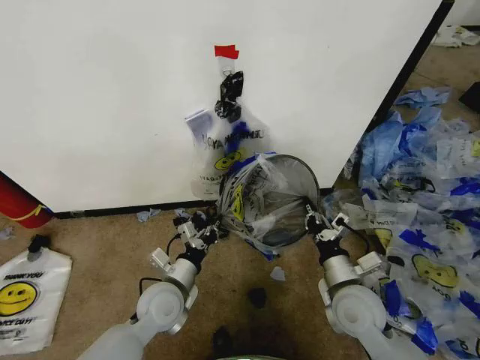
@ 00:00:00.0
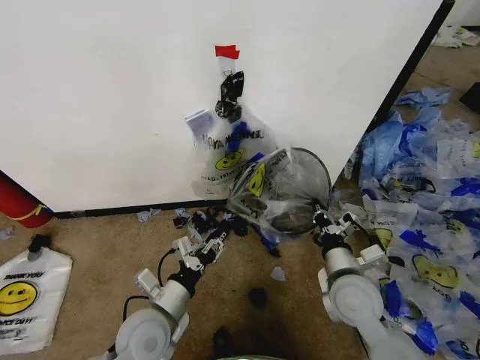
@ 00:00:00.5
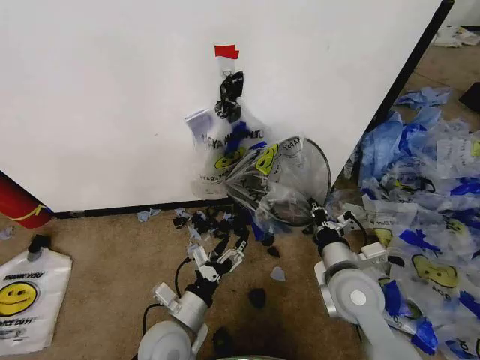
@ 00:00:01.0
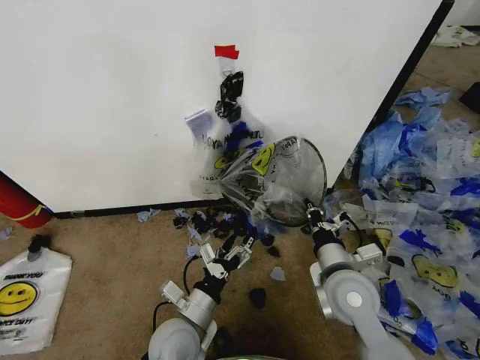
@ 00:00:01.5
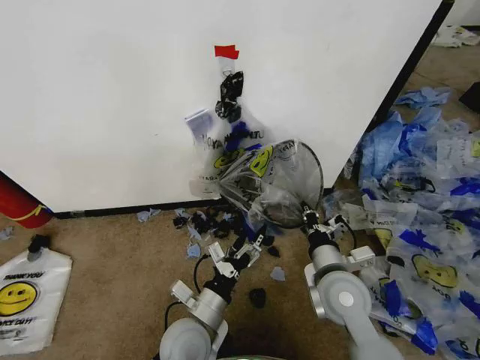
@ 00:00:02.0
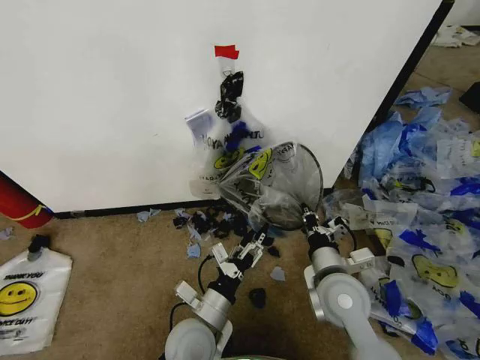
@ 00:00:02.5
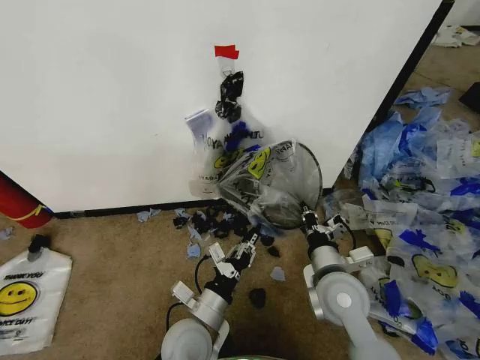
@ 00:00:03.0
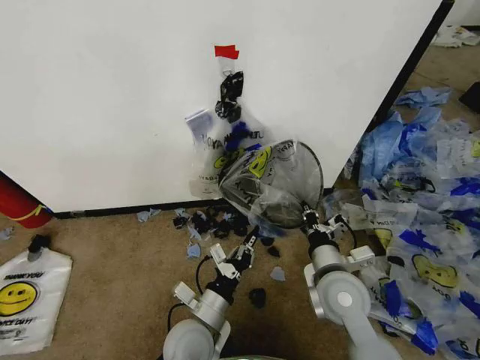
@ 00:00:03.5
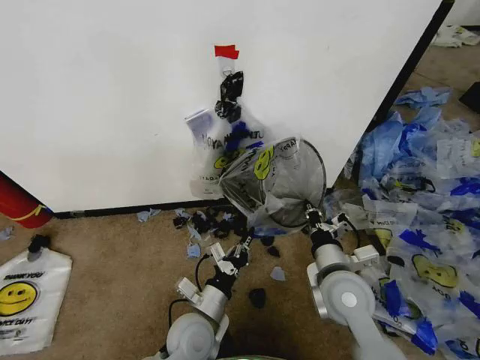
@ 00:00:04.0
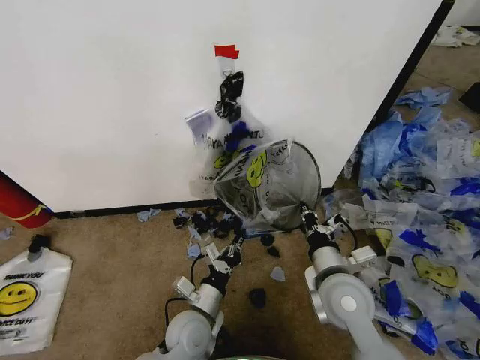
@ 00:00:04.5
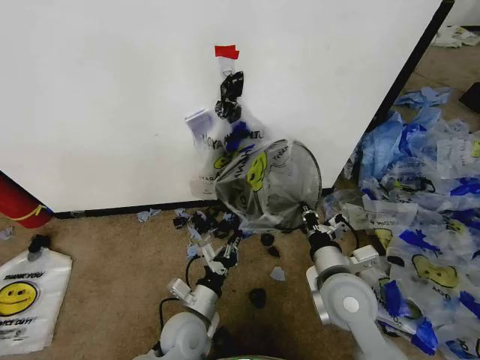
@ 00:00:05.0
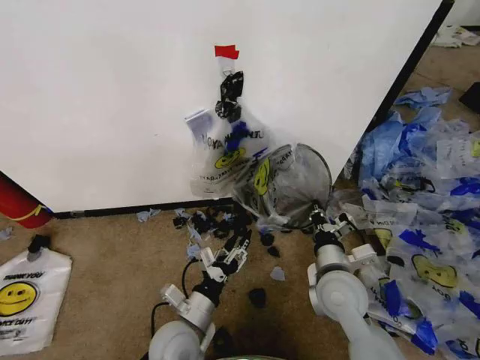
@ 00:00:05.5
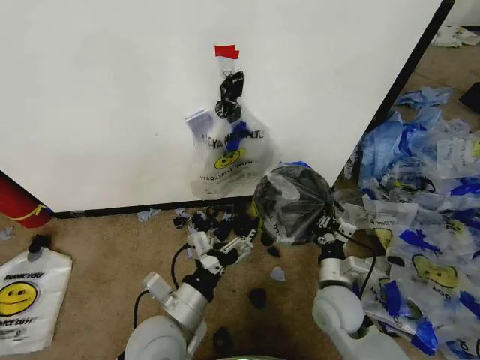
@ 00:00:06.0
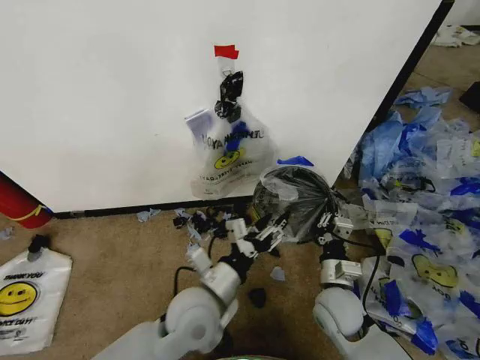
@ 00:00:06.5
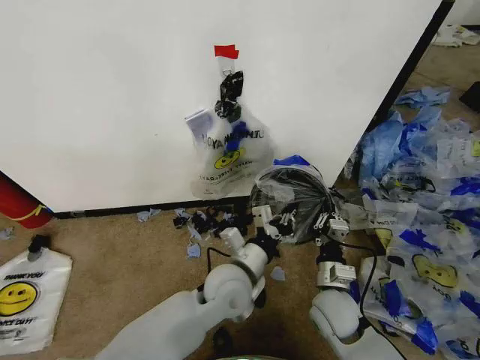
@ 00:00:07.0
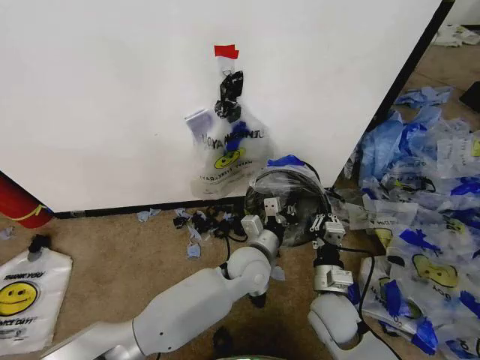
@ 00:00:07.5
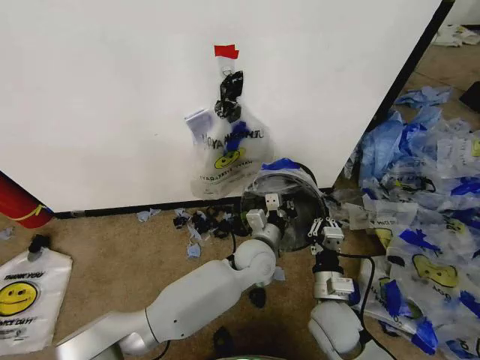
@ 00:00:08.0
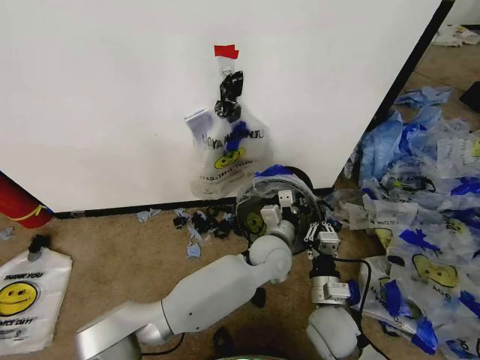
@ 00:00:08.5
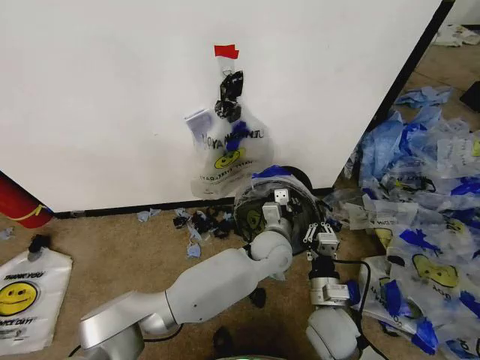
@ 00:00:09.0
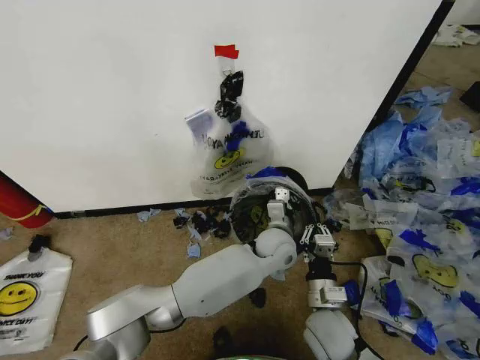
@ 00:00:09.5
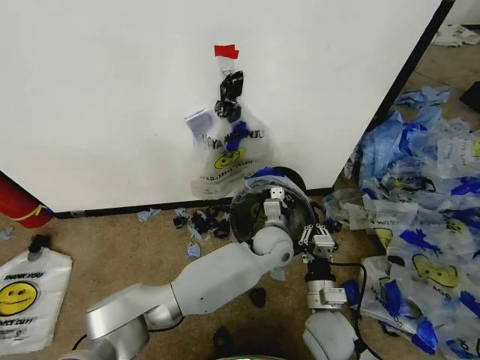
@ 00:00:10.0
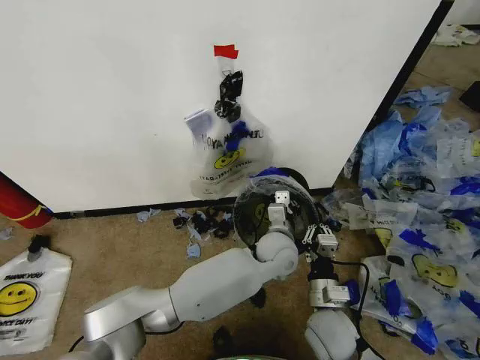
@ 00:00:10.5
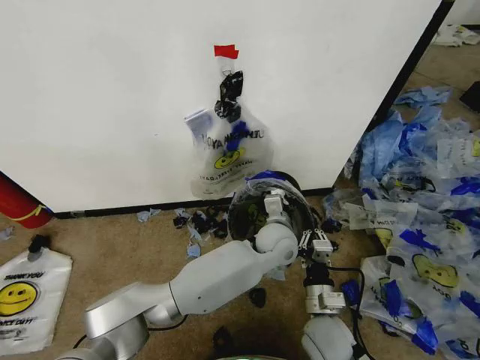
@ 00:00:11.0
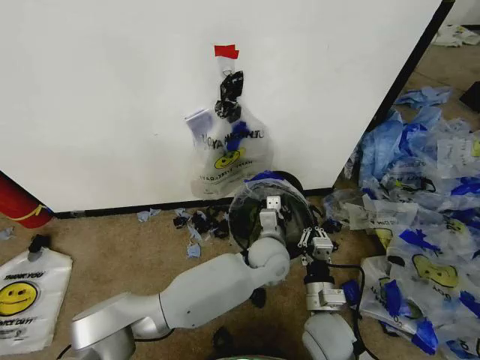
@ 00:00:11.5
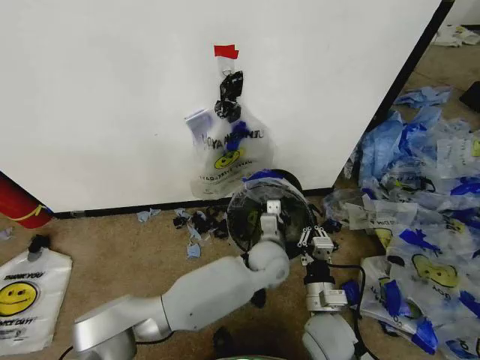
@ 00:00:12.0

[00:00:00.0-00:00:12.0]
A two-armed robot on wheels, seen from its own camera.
Task of the whole recording: Pick up the garbage bag from the wall and place it over the trash bin.
00:00:00.0 to 00:00:02.0: The left gripper moves backward and to the right, roughly 10 cm, and opens; the right gripper changes place by roughly 5 cm.
00:00:02.0 to 00:00:04.0: The left gripper closes its fingers.
00:00:04.0 to 00:00:06.0: The right gripper travels downward by roughly 10 cm. Meanwhile the left gripper is displaced upward by about 10 cm, and opens.
00:00:06.0 to 00:00:08.0: The left gripper travels forward and to the right by roughly 25 cm, and closes up.
00:00:08.0 to 00:00:10.0: The left gripper ends up some 5 cm from where it was.
00:00:10.0 to 00:00:12.0: There are only small adjustments of the grippers.

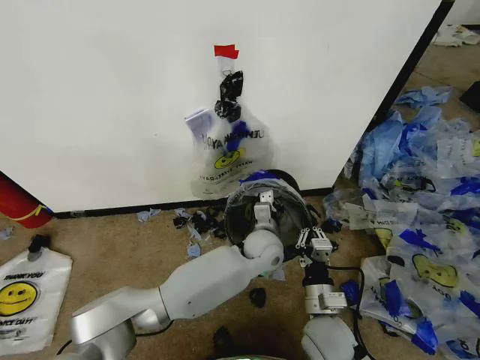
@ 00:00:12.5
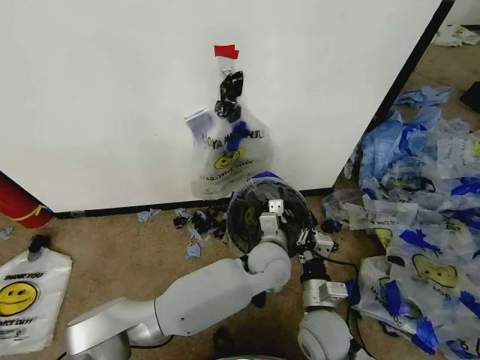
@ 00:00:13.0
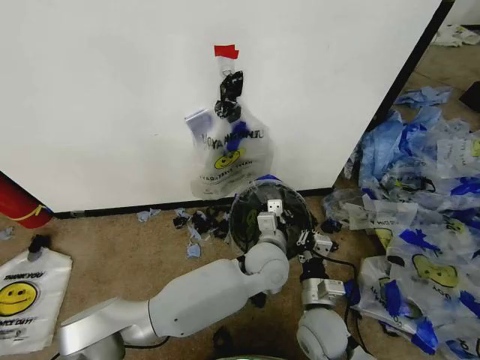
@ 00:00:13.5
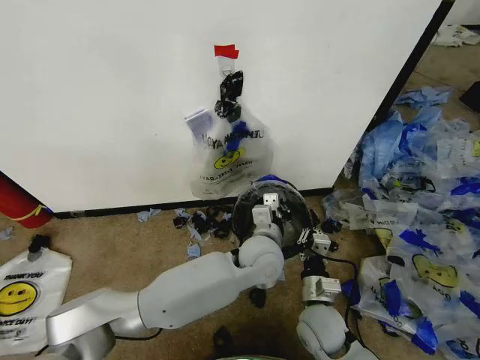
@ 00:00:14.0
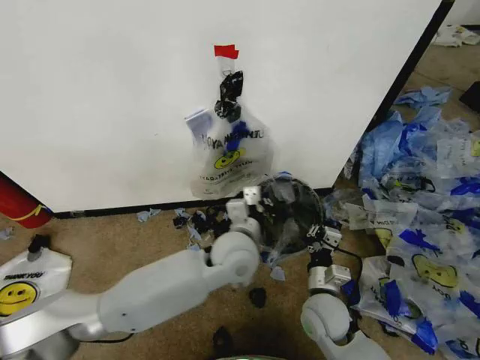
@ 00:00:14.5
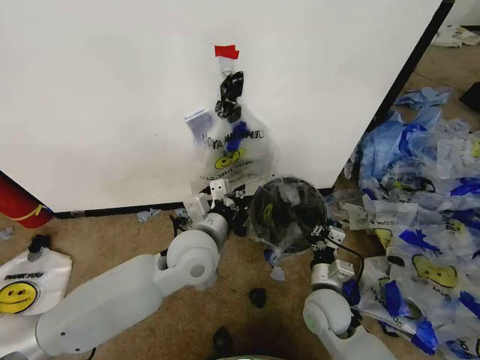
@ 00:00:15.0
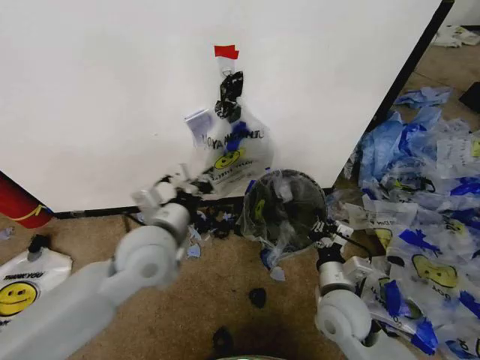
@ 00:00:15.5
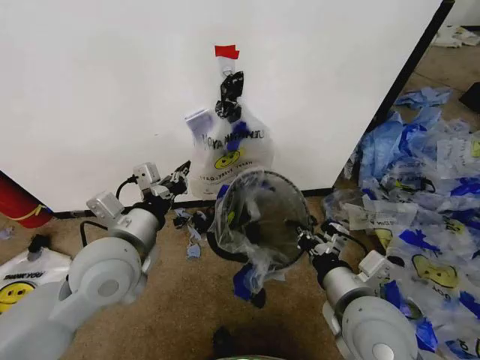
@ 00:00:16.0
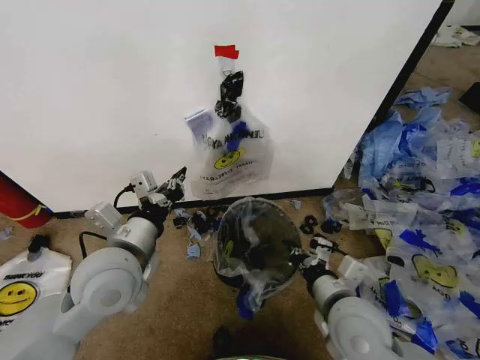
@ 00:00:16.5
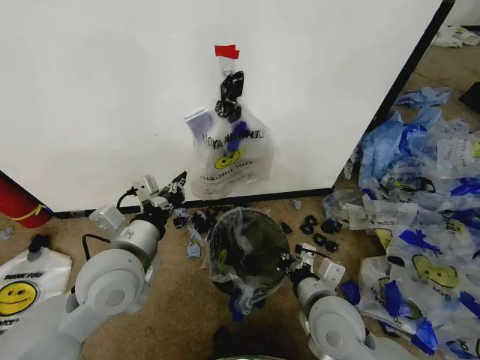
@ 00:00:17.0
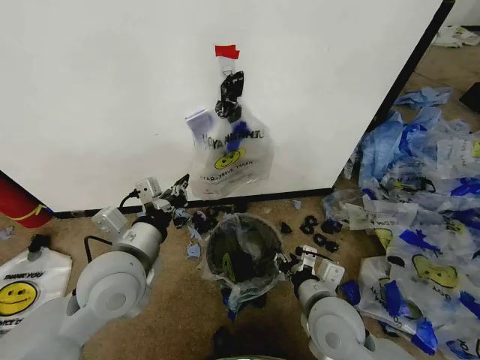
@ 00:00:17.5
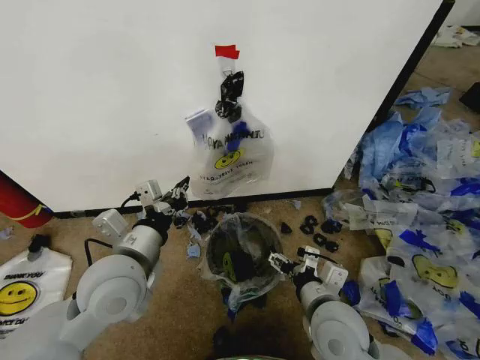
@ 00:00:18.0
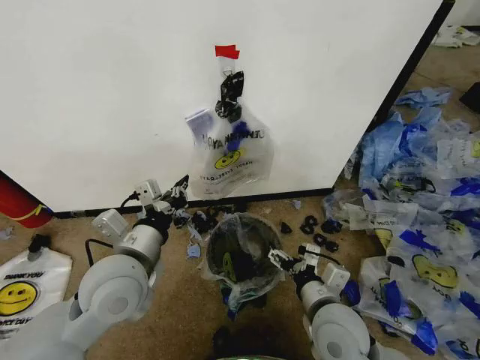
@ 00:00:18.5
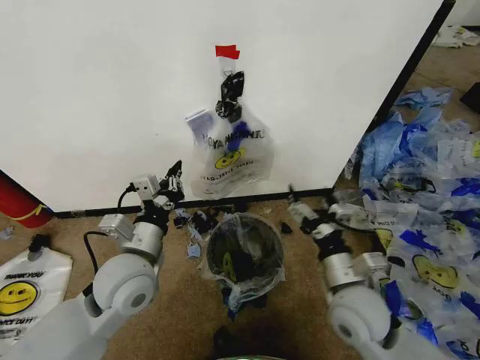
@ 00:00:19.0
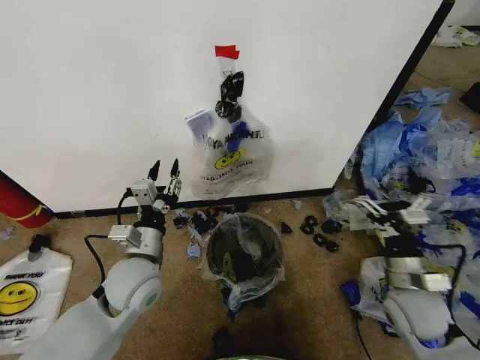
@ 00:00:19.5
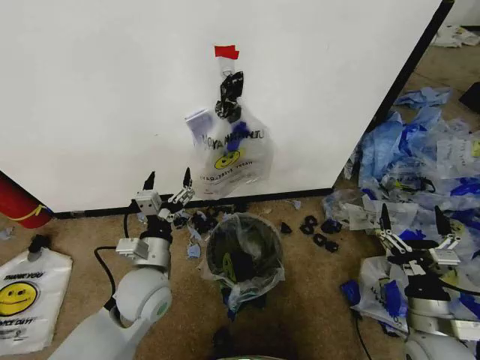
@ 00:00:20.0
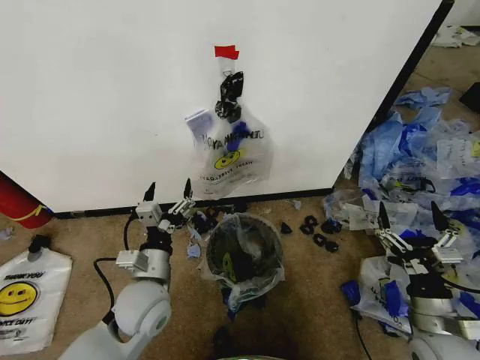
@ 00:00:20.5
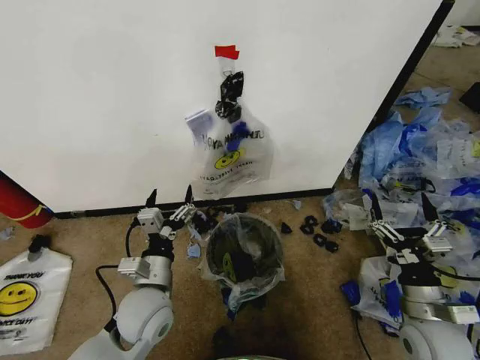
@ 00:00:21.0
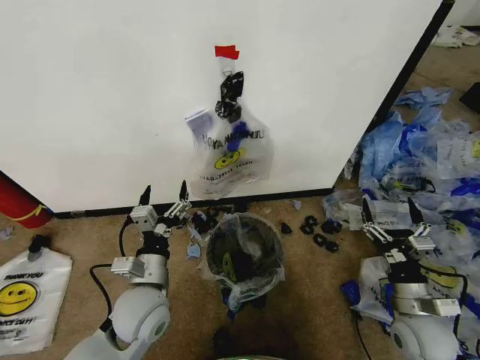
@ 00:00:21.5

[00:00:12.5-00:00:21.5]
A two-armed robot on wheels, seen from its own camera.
Task of the whole recording: Pick up the garbage bag from the wall and place it over the trash bin.
00:00:12.5 to 00:00:14.5: The left gripper is displaced upward, to the left and backward by about 15 cm.
00:00:14.5 to 00:00:17.0: The right gripper shifts approximately 10 cm upward. The left gripper travels to the left and backward by roughly 20 cm.
00:00:17.0 to 00:00:19.5: The right gripper shifts about 15 cm to the right, and opens its fingers, while the left gripper goes roughly 10 cm downward, and opens.
00:00:19.5 to 00:00:21.5: The right gripper shifts by about 5 cm; the left gripper ends up some 5 cm from where it was, and opens up.
